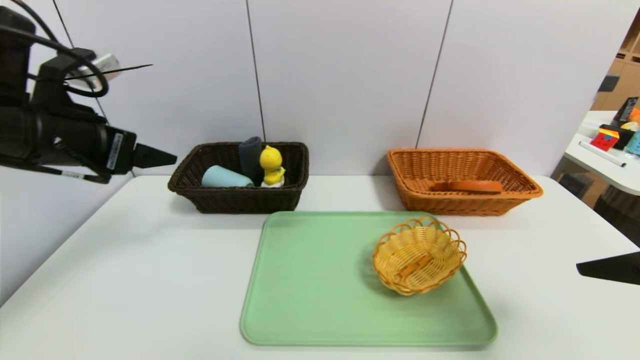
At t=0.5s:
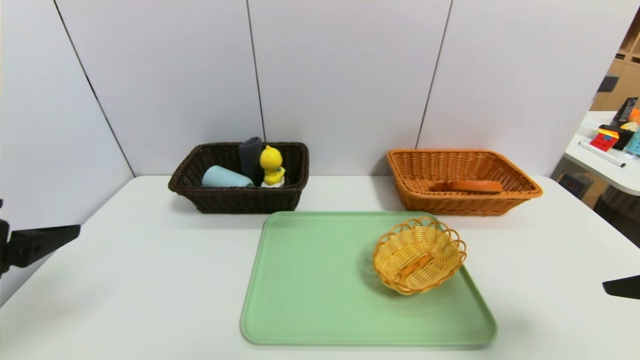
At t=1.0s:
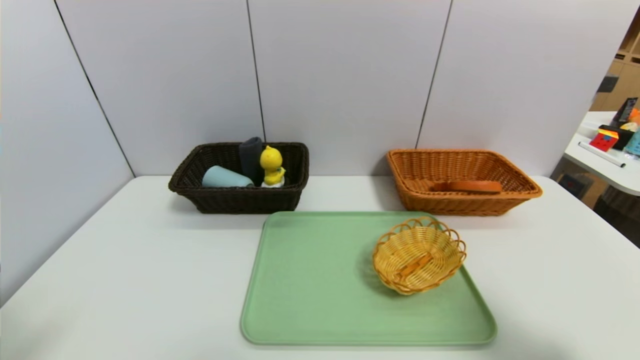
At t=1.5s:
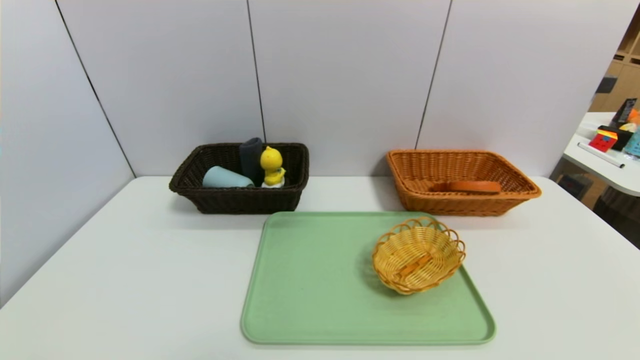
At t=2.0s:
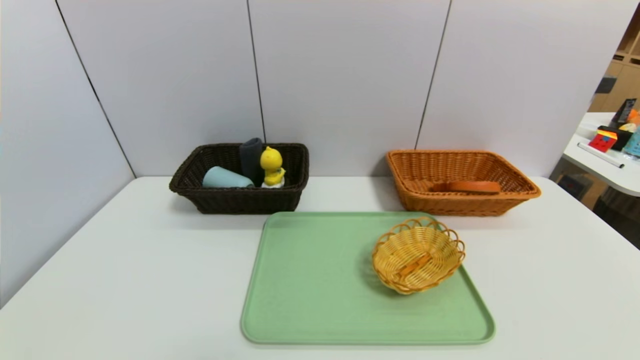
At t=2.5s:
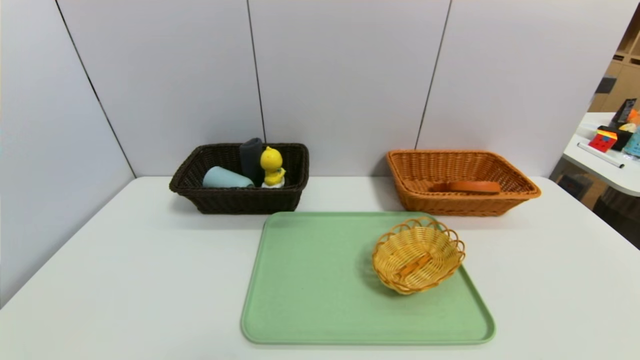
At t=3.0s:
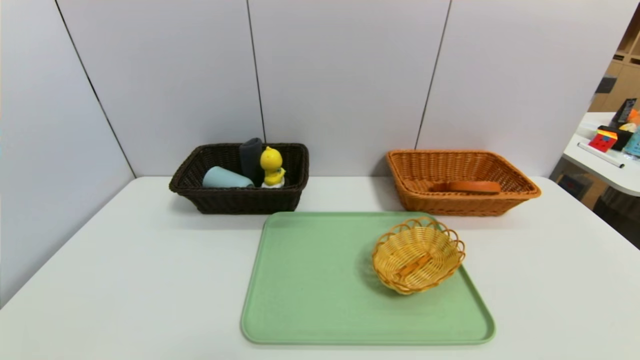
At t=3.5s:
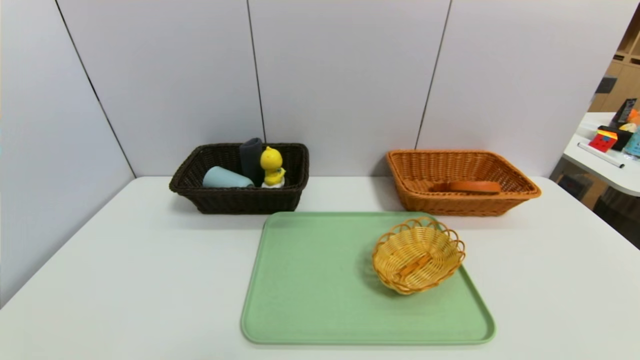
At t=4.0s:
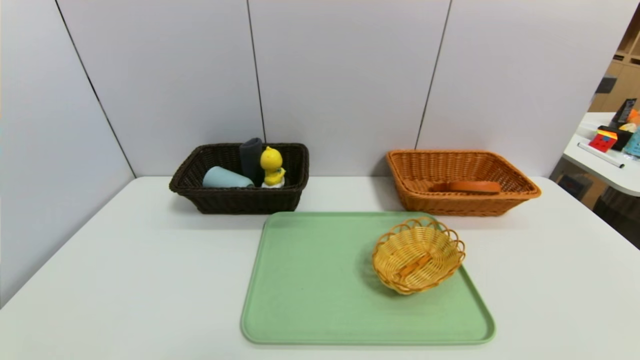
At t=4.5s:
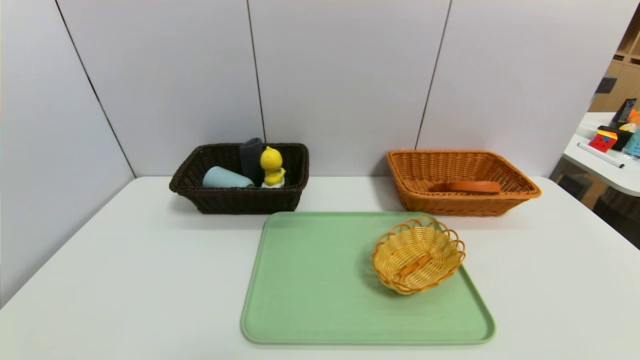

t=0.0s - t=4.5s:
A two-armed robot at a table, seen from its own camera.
Task of the whole recording: place the food in the right basket with the right gripper, and place the non food items in the left basket with the left gripper.
t=0.0s - t=2.0s: Both grippers move backward and downward, some 30 cm.
